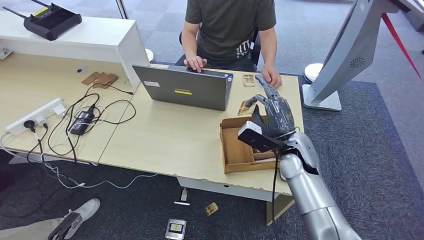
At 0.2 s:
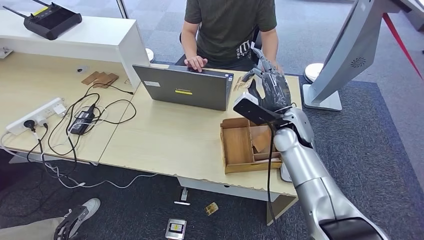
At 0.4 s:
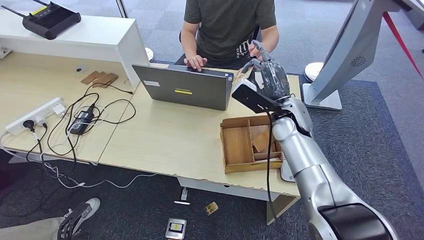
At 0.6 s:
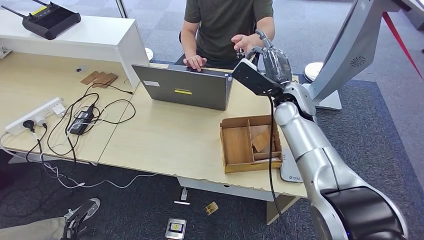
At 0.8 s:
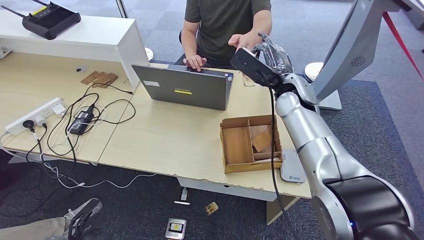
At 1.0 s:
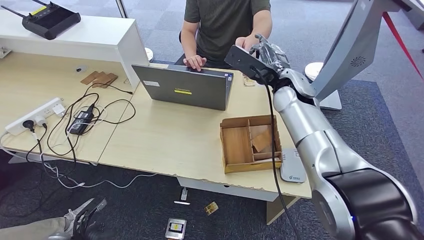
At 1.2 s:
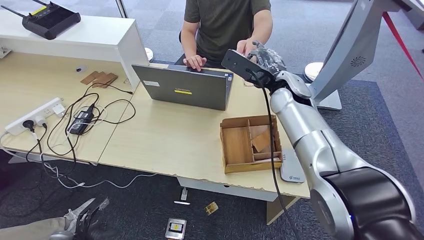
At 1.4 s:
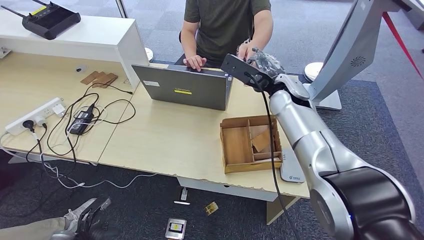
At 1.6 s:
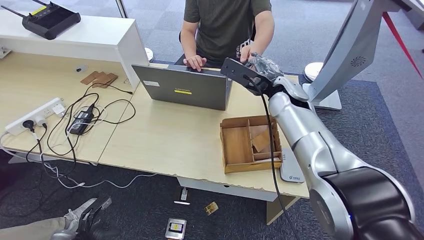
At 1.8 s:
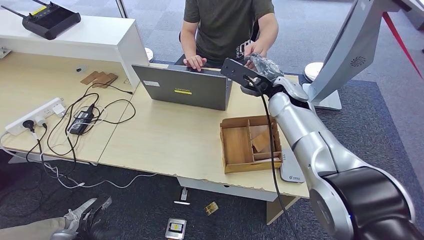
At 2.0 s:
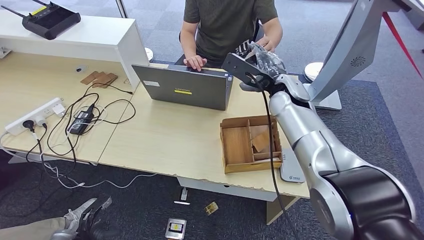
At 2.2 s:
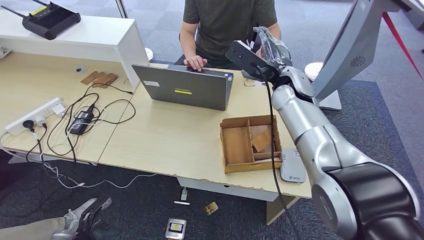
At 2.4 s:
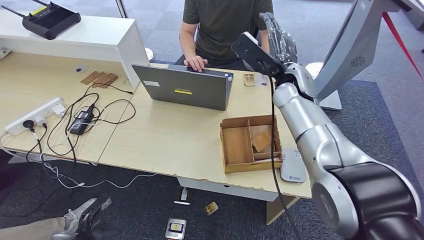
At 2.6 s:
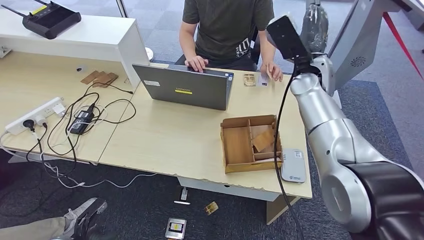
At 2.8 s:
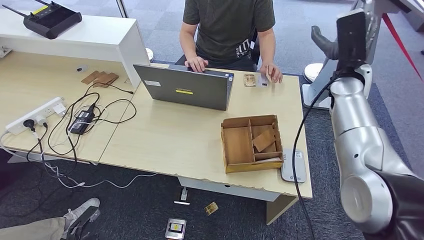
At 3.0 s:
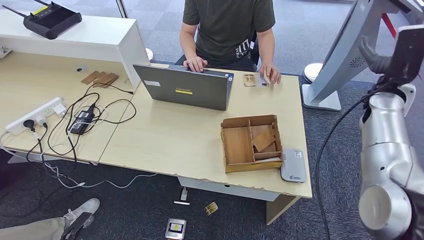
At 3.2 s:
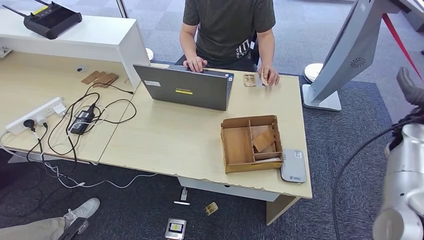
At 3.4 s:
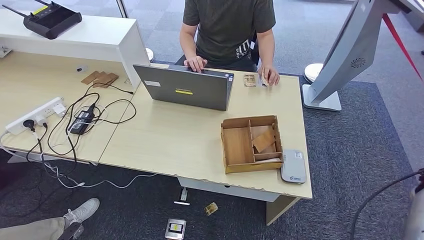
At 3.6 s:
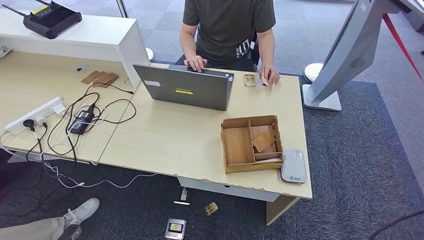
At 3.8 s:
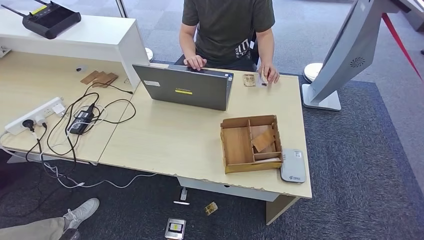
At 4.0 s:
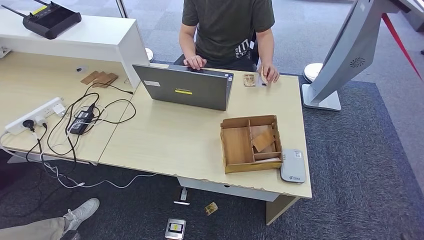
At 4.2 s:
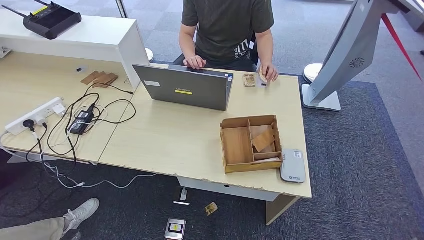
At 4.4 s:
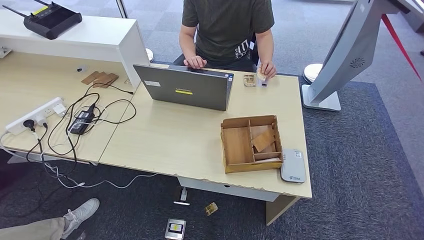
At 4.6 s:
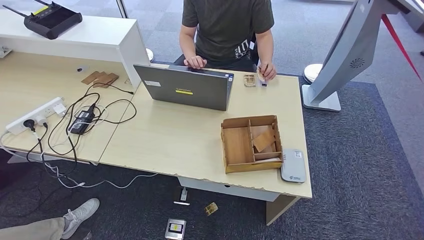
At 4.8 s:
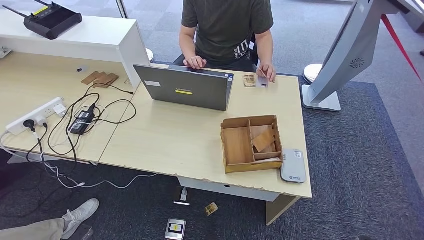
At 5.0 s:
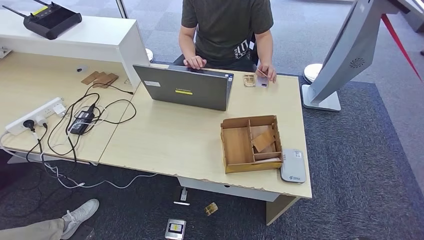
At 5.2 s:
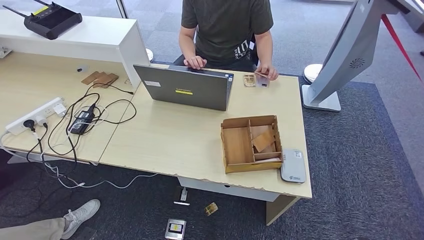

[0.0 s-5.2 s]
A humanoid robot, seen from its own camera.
Step, 1.2 to 5.2 s: Hand the room key to the person.
0.0 to 1.8 s: The right hand goes some 15 cm upward and forward, while the left hand heads forward and to the right, covering about 10 cm.
1.8 to 3.4 s: The left hand shifts about 10 cm backward; the right hand is displaced to the right by approximately 35 cm.
3.4 to 5.2 s: The right hand goes about 35 cm downward and backward.

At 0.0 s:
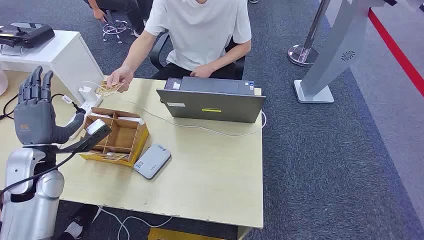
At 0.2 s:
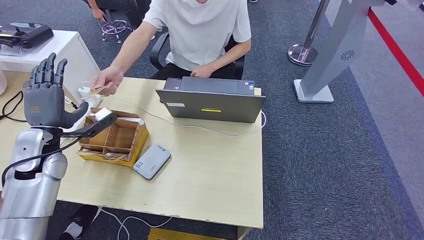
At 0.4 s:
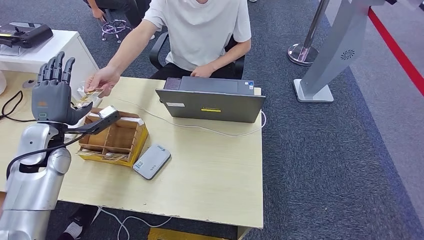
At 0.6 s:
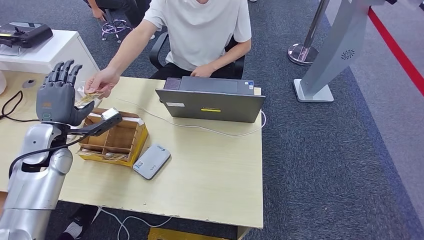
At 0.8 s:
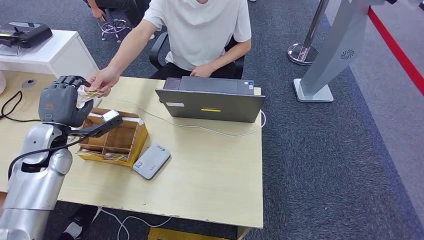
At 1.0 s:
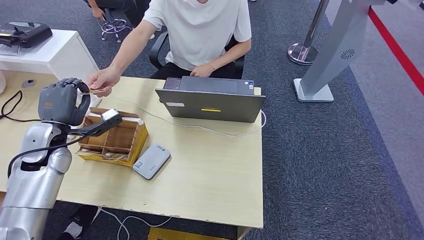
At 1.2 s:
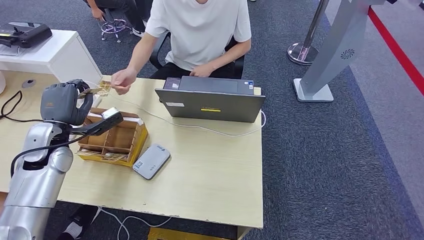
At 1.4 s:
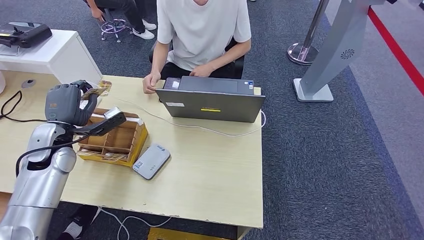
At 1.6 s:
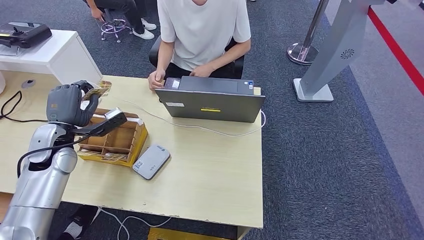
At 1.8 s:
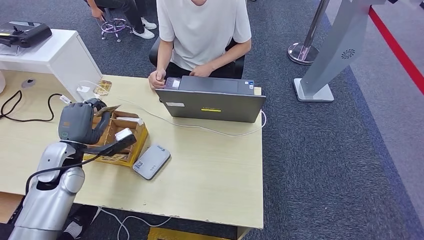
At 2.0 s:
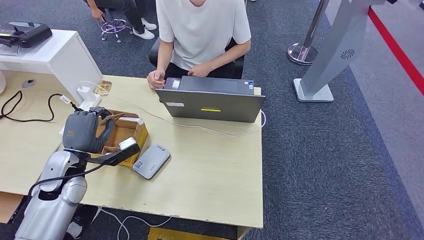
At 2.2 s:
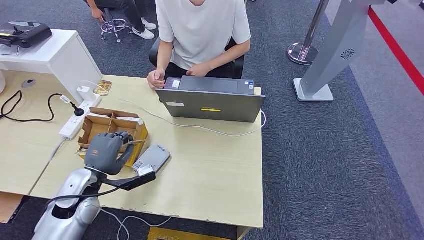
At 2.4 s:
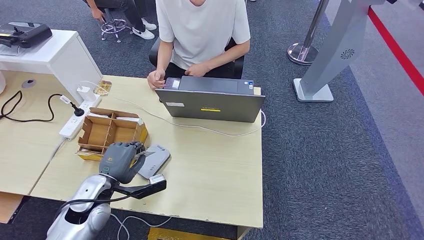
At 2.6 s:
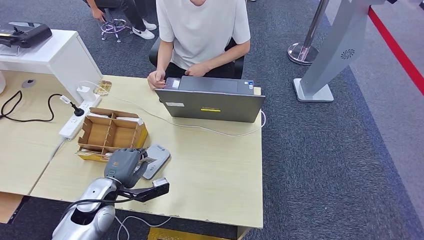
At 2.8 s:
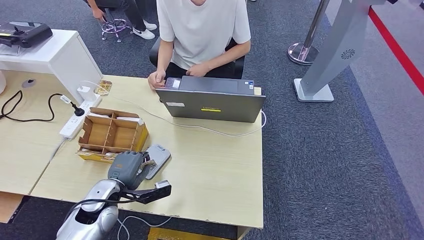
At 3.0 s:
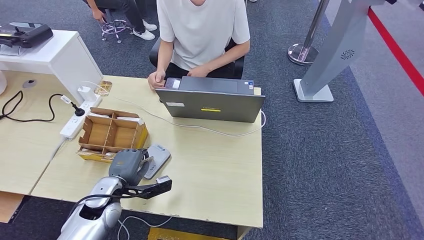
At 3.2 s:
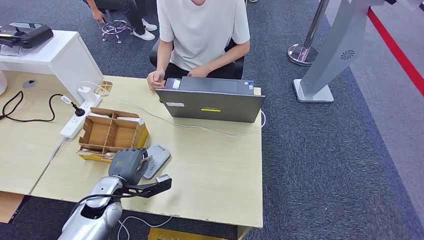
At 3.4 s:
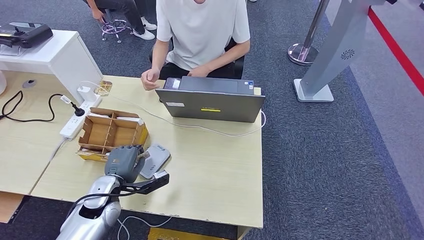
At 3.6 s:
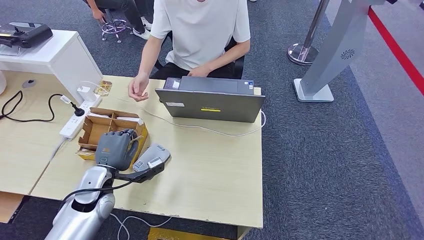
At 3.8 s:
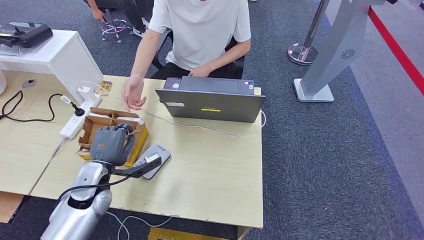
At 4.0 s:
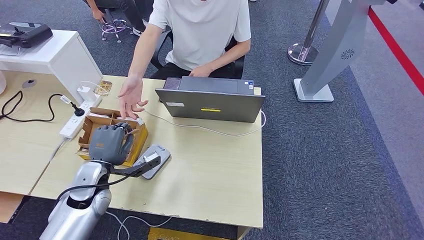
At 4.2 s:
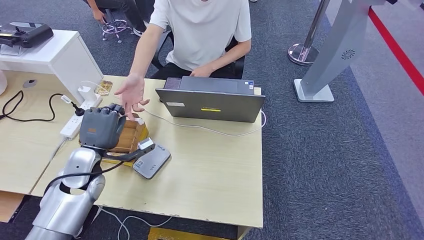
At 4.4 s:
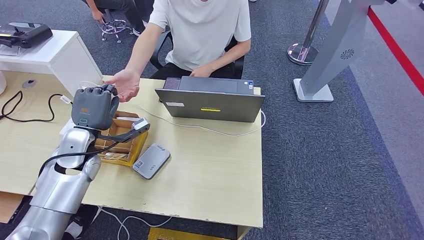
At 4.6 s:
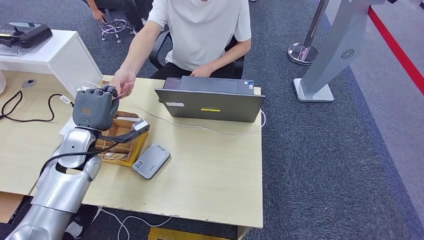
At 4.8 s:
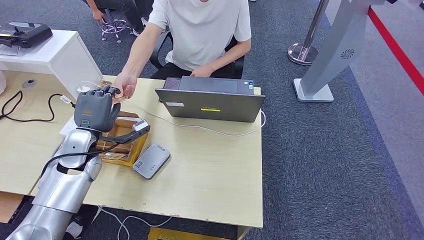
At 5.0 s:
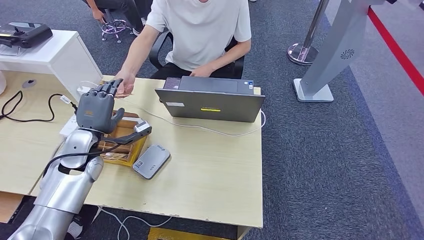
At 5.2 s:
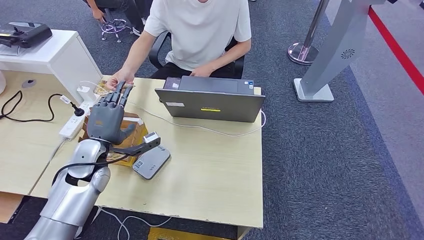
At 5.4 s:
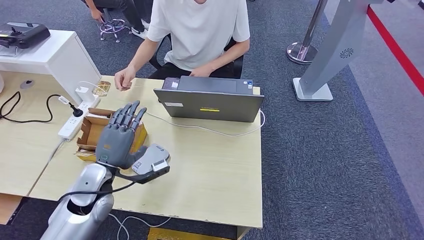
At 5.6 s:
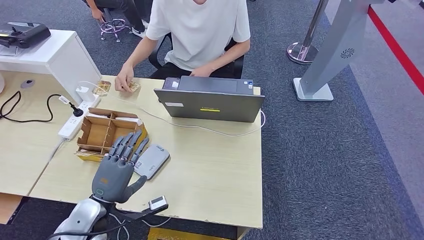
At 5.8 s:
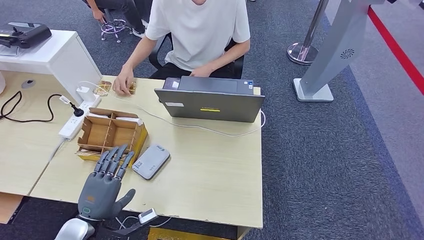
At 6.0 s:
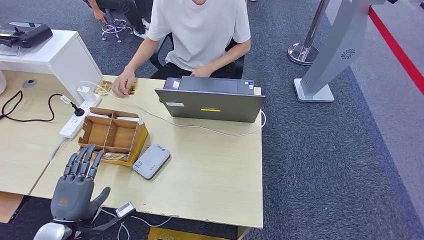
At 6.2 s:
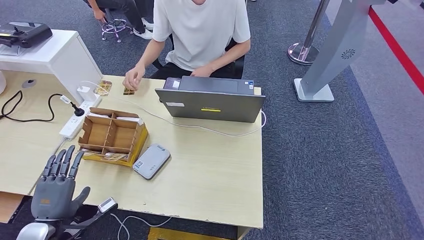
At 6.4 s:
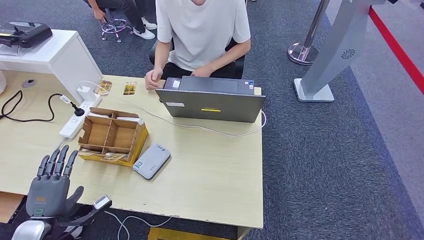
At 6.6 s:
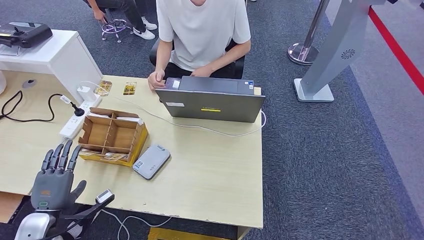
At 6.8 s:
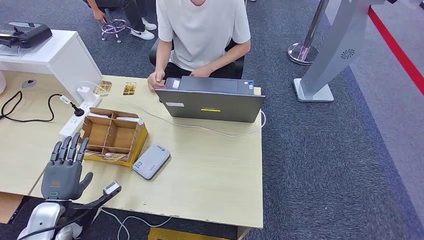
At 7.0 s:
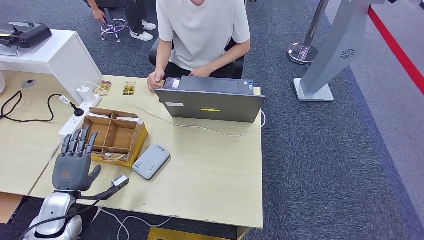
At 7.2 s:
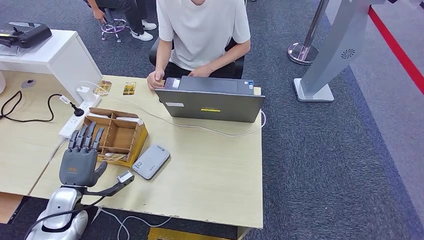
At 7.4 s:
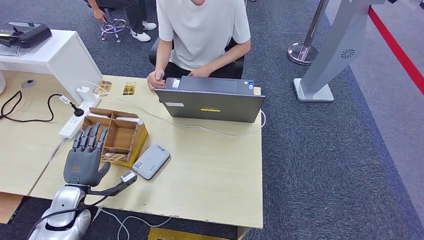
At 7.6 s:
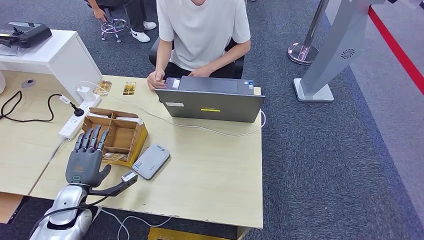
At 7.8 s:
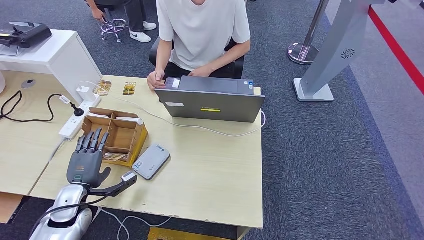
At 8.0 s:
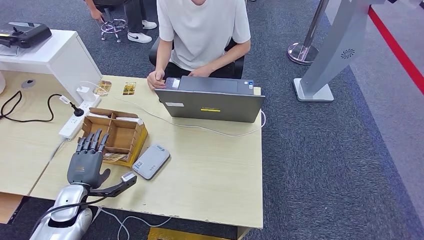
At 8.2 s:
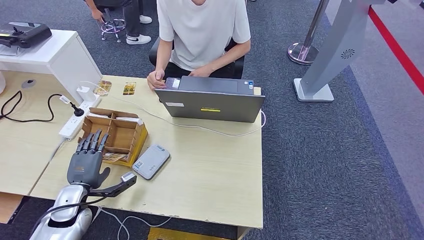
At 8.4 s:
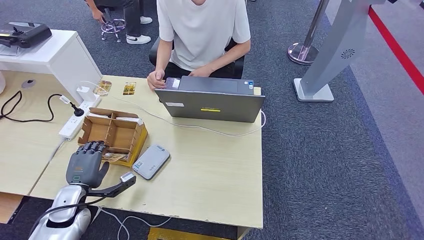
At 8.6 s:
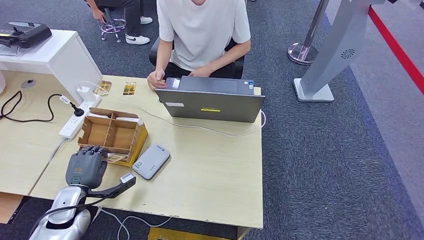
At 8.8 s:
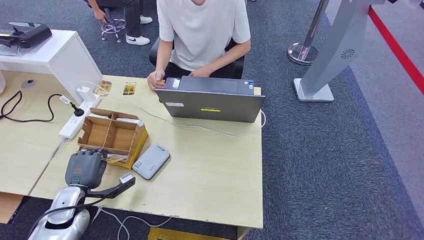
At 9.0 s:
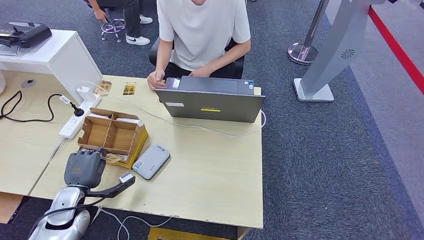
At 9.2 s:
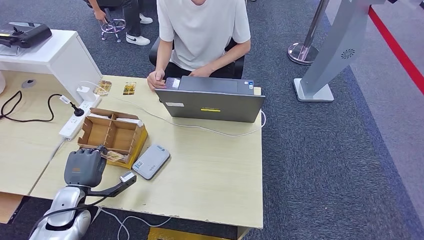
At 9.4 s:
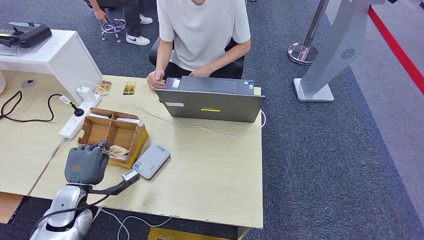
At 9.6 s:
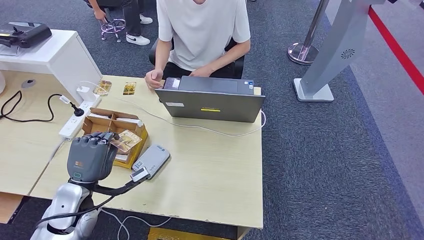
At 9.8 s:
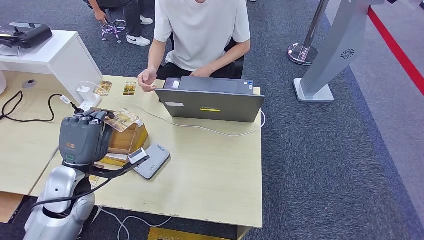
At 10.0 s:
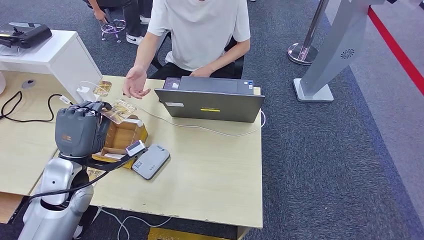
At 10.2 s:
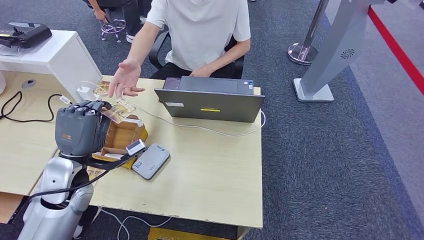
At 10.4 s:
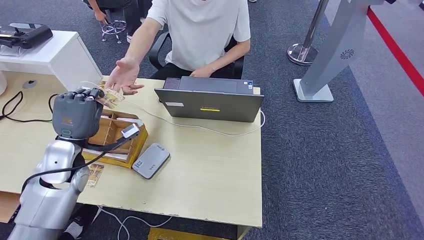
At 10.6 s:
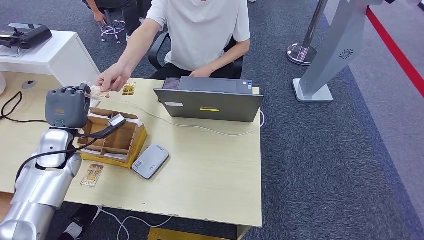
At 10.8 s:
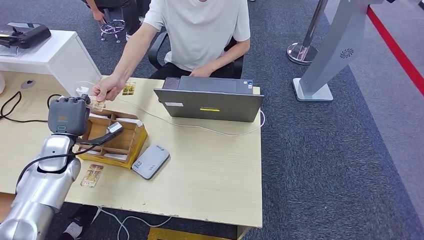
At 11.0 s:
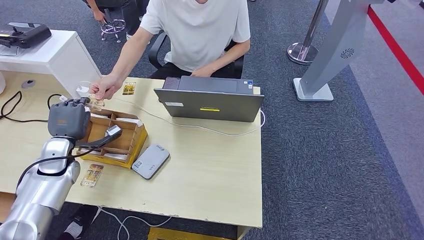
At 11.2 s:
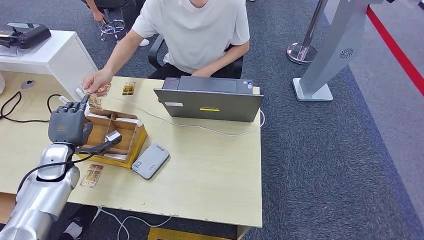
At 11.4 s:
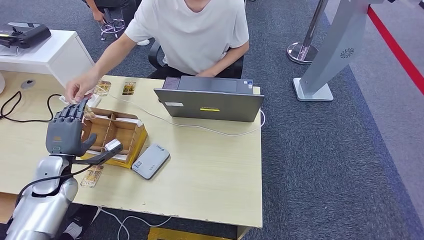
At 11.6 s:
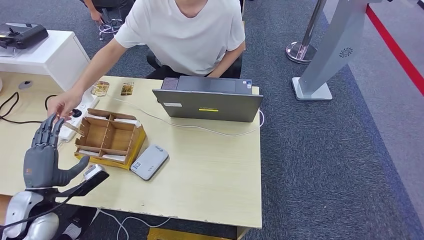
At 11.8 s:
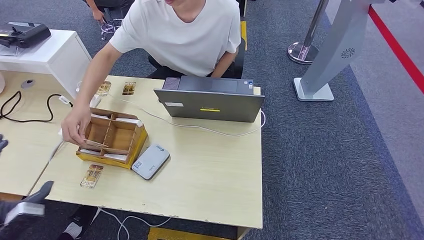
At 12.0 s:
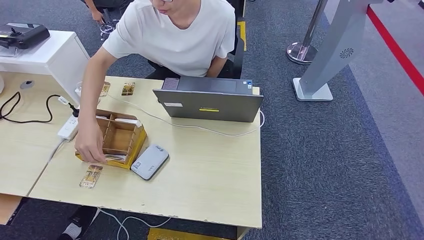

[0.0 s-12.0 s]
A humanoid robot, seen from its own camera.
Step, 0.0 to 1.6 s: Take the ID card from the person's hand.
Step, 2.0 to 3.2 s: Place the ID card on the card reader.
Step, 3.6 to 5.6 s: Hand the ID card to the person.
Step, 7.8 to 9.8 s: Pick up the room key from the key card box.
Step, 10.0 to 12.0 s: Hand the room key to the person.
1.6 to 3.0 s: The left hand shifts some 20 cm downward, to the right and backward.
3.0 to 4.4 s: The left hand shifts roughly 15 cm upward and forward.
4.4 to 6.0 s: The left hand goes about 20 cm backward and downward.
6.0 to 7.6 s: The left hand shifts some 10 cm forward.
7.6 to 9.0 s: The hands stay close to where they were, moving slightly.
9.0 to 10.4 s: The left hand shifts roughly 15 cm upward and forward.
